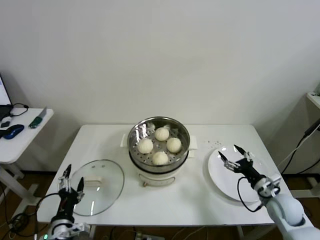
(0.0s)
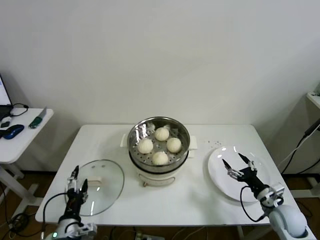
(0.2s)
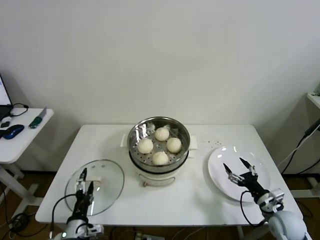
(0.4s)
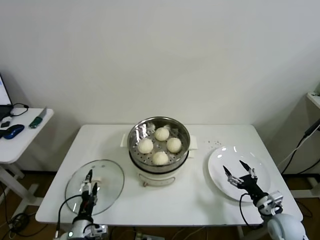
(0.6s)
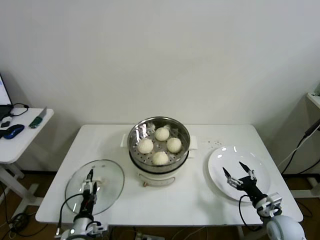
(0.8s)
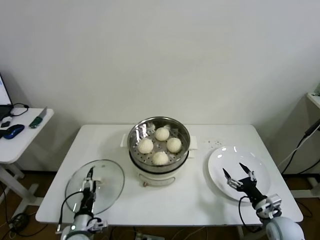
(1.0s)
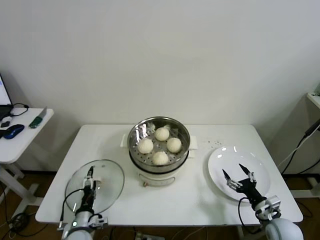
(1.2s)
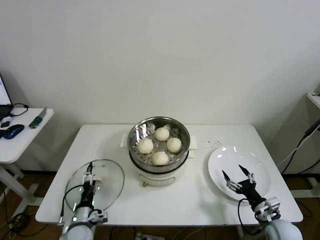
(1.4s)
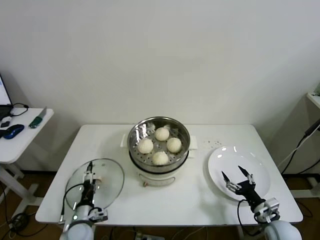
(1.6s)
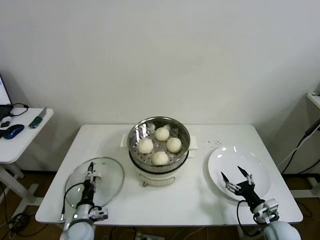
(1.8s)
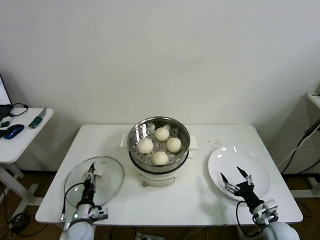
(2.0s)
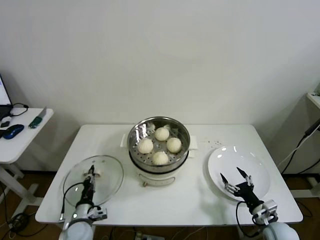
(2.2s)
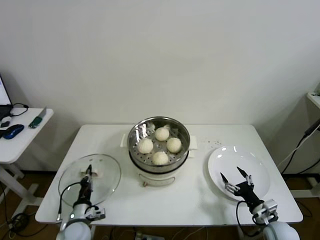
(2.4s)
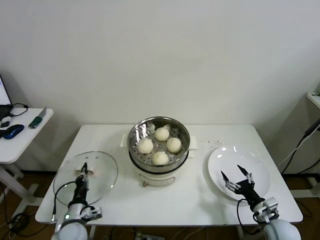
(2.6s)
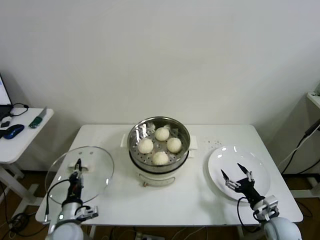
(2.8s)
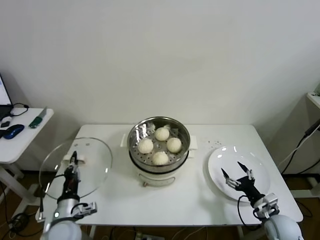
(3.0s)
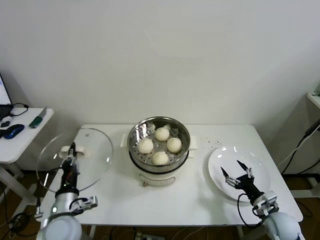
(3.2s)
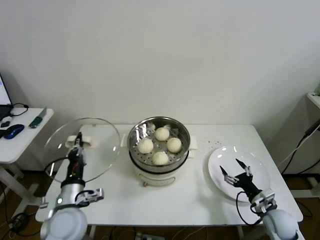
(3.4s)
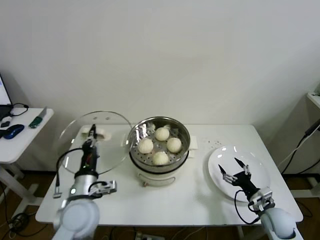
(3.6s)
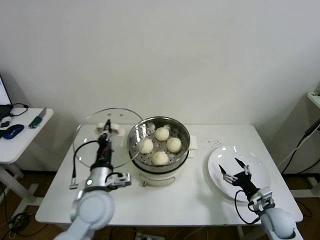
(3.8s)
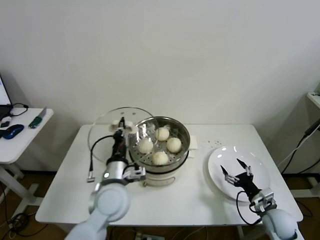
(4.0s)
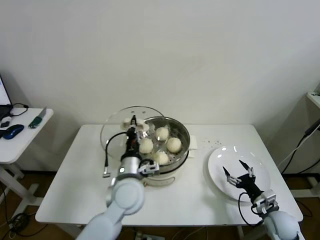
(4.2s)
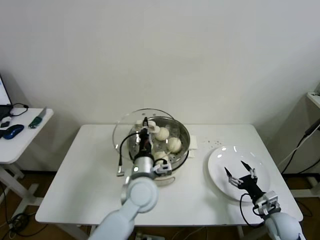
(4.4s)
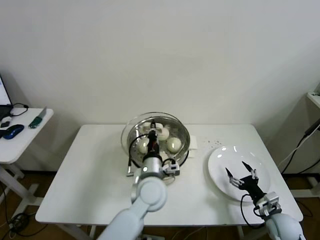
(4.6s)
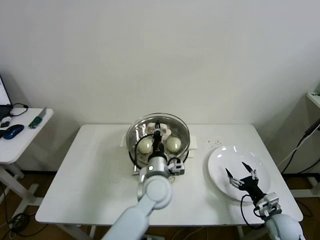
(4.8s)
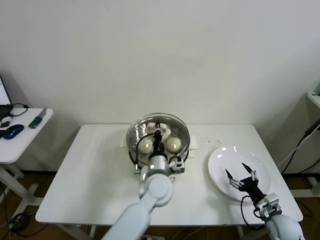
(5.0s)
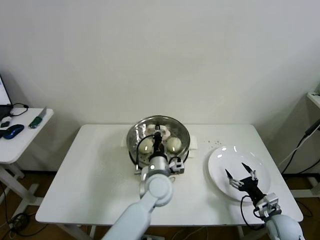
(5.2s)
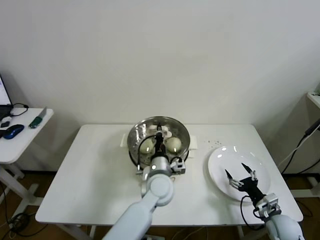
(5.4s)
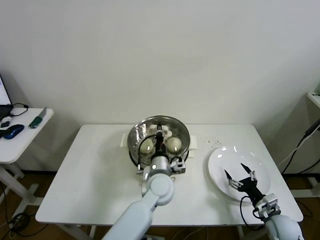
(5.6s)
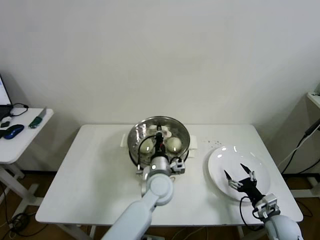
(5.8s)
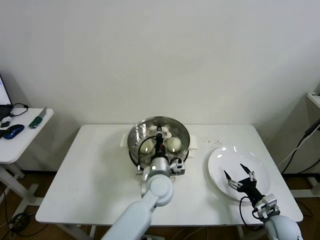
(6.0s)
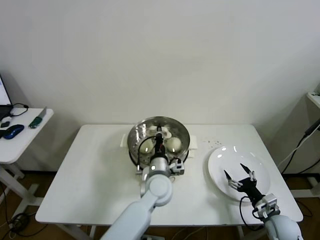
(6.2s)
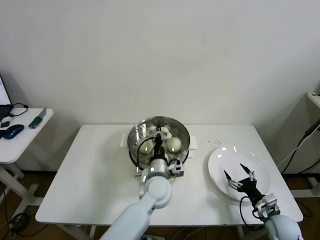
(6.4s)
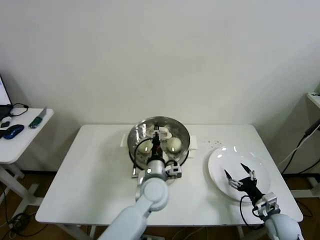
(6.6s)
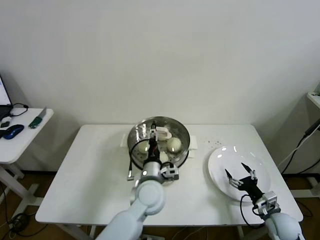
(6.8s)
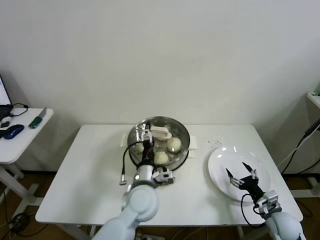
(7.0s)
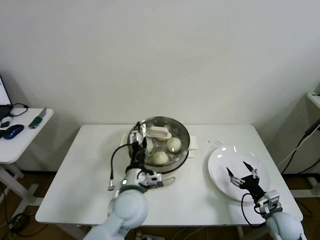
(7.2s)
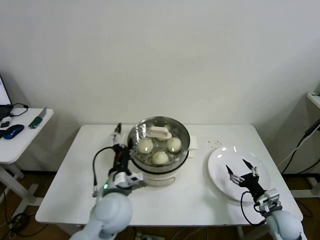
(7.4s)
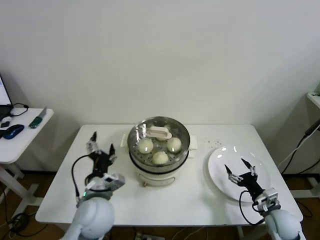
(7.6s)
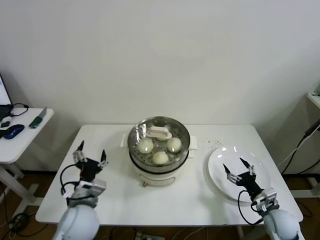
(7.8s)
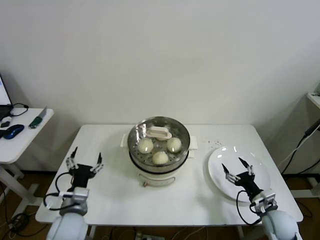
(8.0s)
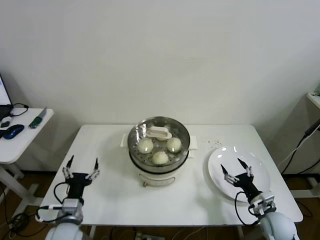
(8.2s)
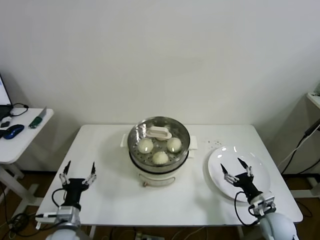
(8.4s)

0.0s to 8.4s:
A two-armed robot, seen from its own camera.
Step, 0.0s to 2.2s: Grasp the pot lid with left gripper.
Step, 2.4s to 6.2s: Place the pot lid on the steamer with left gripper.
0.0s to 1.4s: The left gripper travels downward and forward by approximately 15 cm. Meanwhile the right gripper goes roughly 10 cm backward and downward.
1.4s to 2.8s: The left gripper shifts by some 5 cm, and closes its fingers.
2.8s to 4.2s: The left gripper goes some 25 cm to the right and upward.
4.2s to 5.6s: The left gripper goes some 10 cm to the right and downward.
5.6s to 7.0s: The left gripper changes place by roughly 5 cm, and opens its fingers.
7.0s to 8.4s: The left gripper moves to the left and backward, approximately 25 cm.

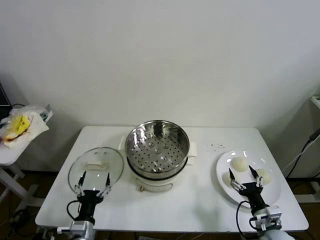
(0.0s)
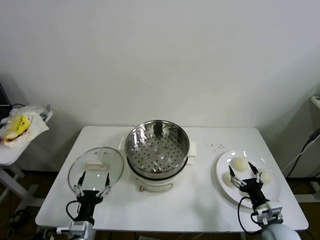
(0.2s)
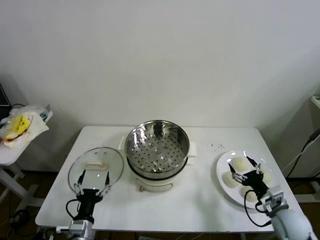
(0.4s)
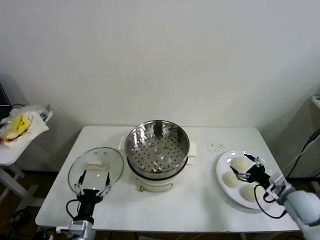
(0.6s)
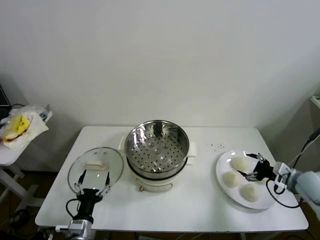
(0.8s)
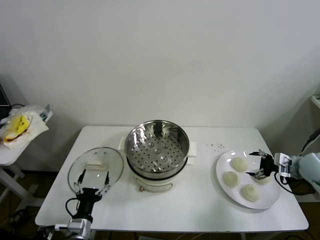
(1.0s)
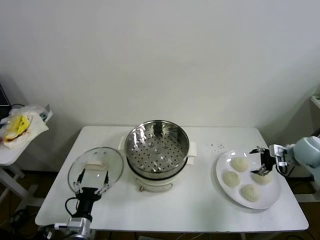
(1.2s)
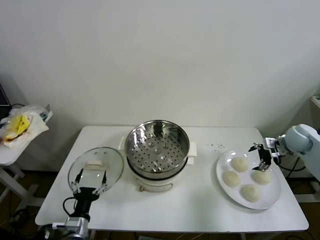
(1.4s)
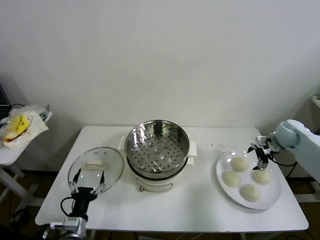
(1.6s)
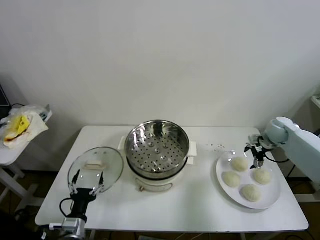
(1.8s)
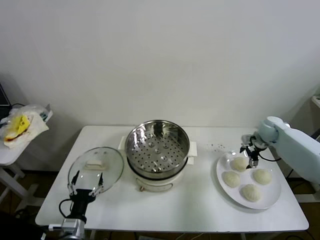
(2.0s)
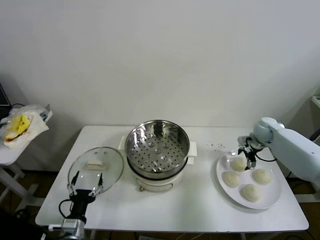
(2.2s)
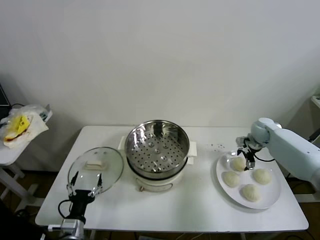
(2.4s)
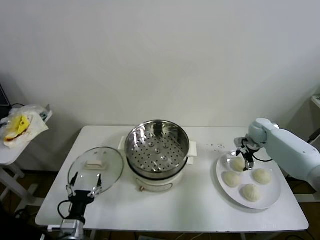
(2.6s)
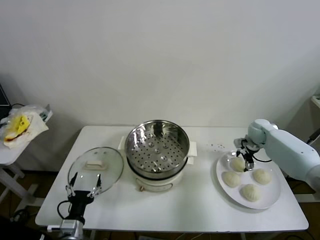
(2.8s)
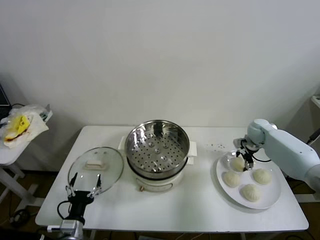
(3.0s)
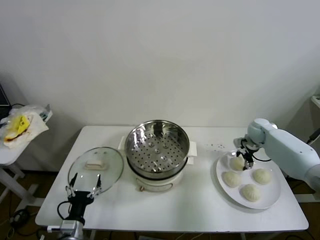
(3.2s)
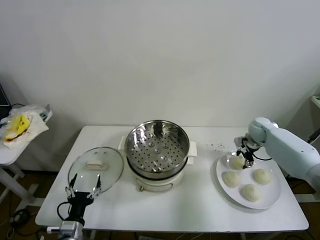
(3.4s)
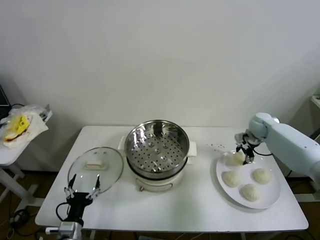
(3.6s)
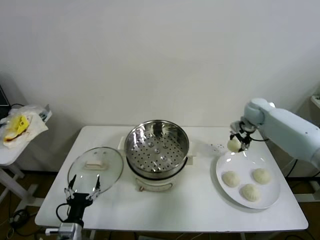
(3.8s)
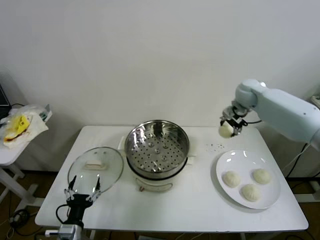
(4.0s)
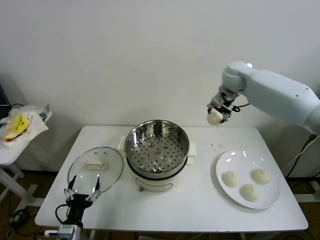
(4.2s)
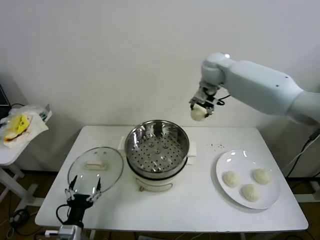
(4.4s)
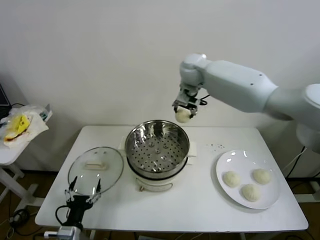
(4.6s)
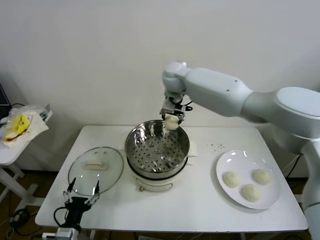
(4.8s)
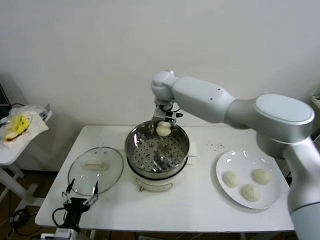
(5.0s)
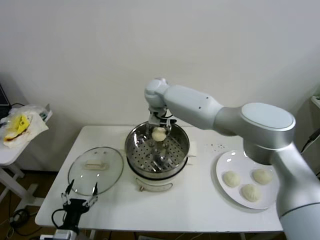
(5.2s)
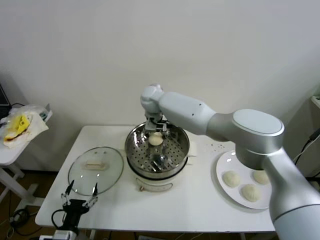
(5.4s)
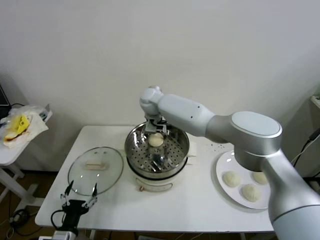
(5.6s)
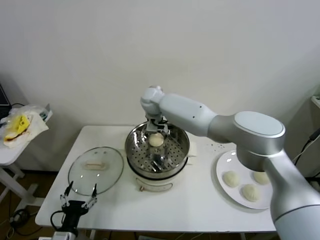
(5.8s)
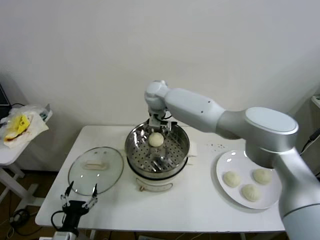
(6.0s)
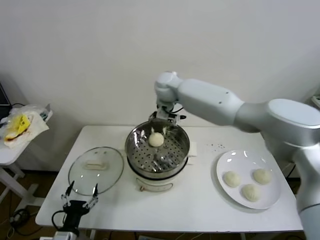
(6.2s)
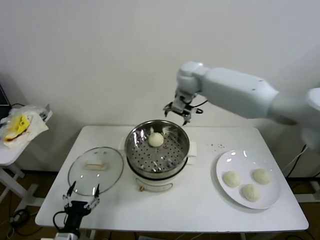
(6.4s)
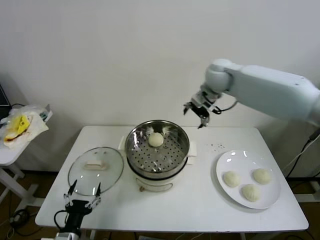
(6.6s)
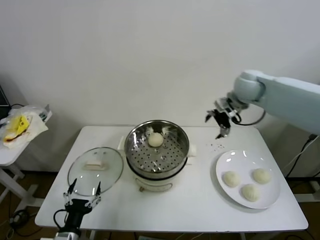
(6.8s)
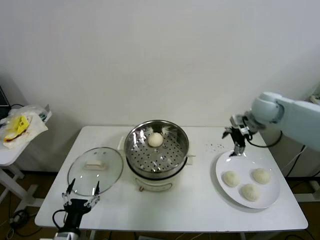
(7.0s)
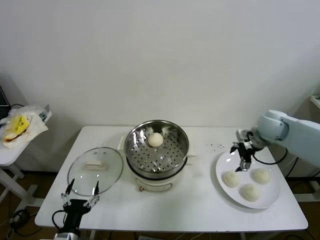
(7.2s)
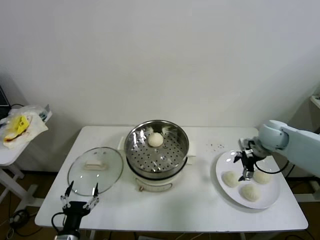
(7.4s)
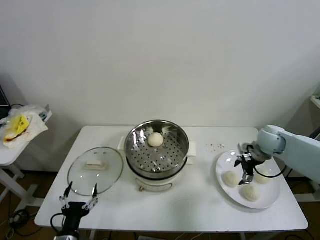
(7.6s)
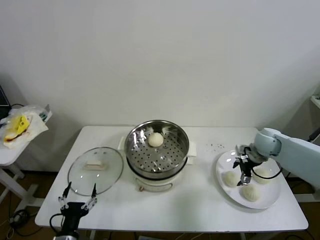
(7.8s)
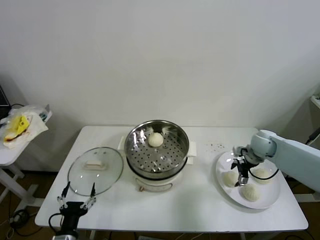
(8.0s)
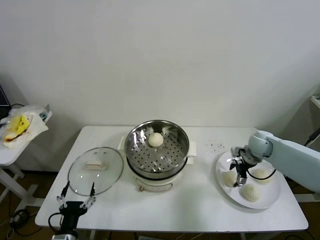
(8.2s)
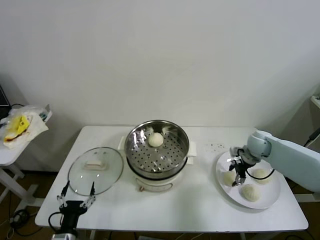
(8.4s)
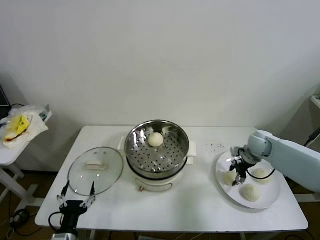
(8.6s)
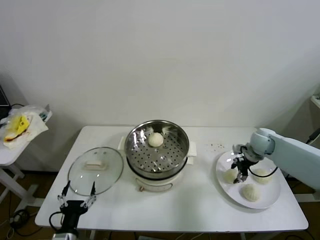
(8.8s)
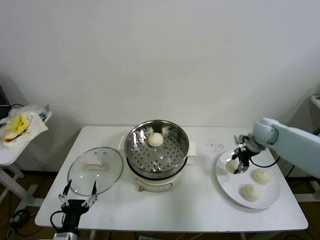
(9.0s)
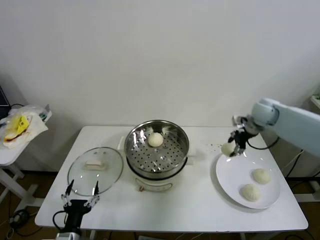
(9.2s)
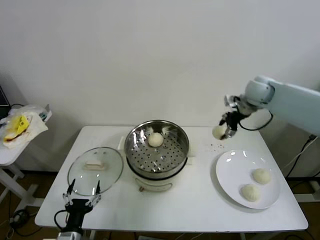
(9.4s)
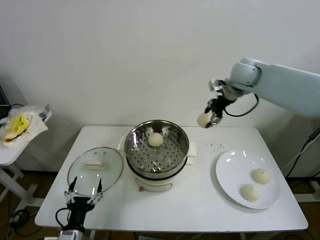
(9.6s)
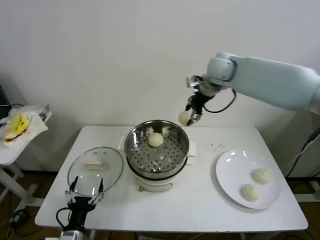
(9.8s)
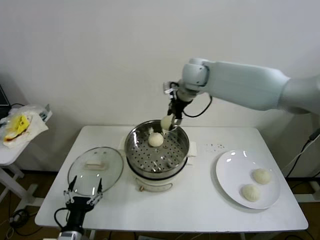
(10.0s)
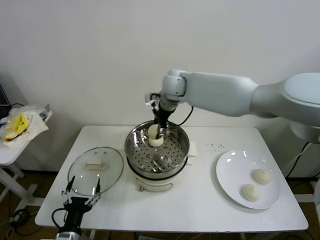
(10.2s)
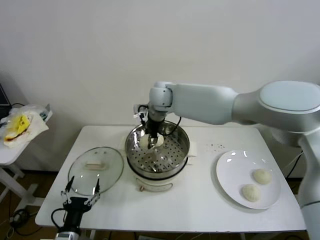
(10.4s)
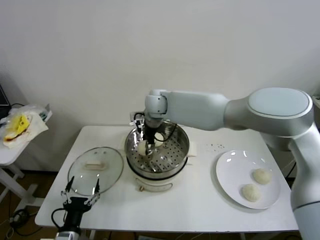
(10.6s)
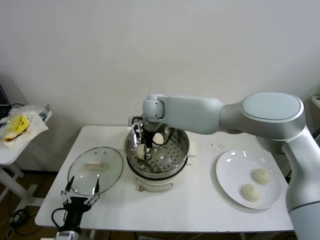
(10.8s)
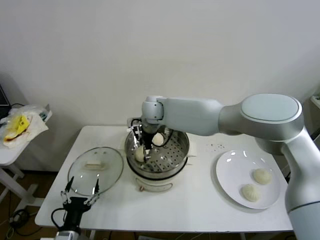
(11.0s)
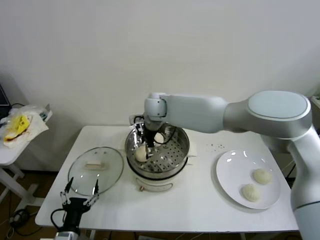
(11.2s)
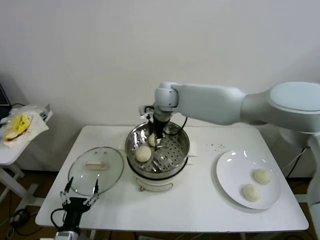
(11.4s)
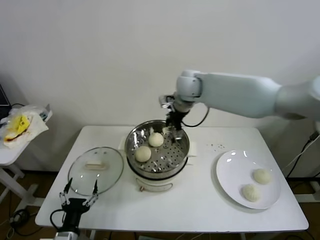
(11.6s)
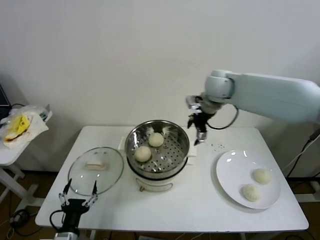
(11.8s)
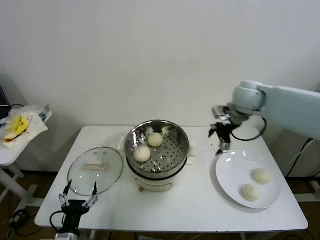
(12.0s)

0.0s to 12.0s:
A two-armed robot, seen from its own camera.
Step, 0.0s to 3.0s: Grasp the baozi in the plate with right gripper.
Step, 3.2s to 5.4s: Place the baozi on the steamer with right gripper.
Step, 5.8s to 8.2s: Grasp the baozi in the plate with right gripper.
Step, 8.6s to 10.8s: Place the baozi on the steamer with right gripper.
1.6s to 3.0s: The right gripper shifts roughly 5 cm to the left, and closes.
3.0s to 4.4s: The right gripper heads to the left and upward, covering some 35 cm.
4.4s to 6.0s: The right gripper is displaced to the left and downward by approximately 15 cm, and opens.
6.0s to 7.6s: The right gripper travels to the right by some 40 cm.
7.6s to 9.0s: The right gripper changes place by some 5 cm, and closes.
9.0s to 10.4s: The right gripper goes approximately 40 cm to the left.
10.4s to 12.0s: The right gripper moves to the right, about 30 cm, and opens.

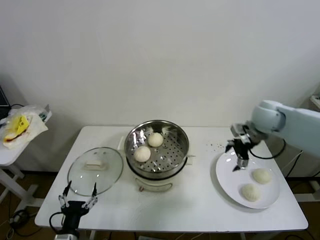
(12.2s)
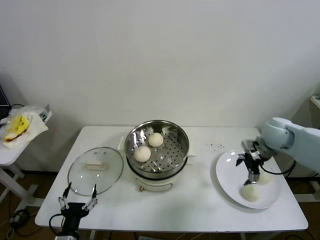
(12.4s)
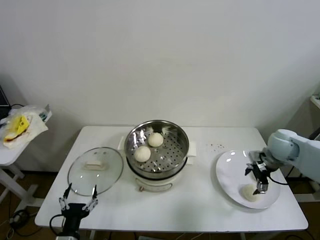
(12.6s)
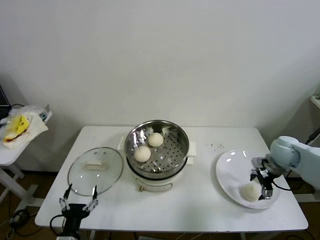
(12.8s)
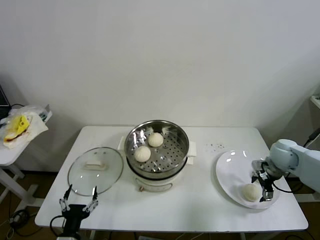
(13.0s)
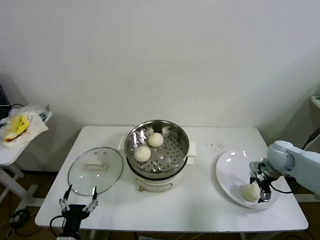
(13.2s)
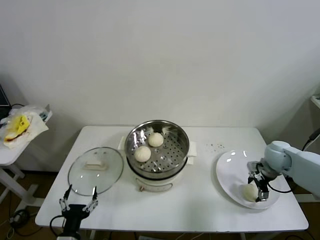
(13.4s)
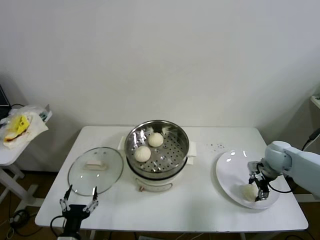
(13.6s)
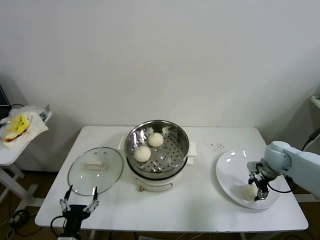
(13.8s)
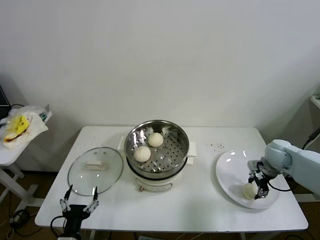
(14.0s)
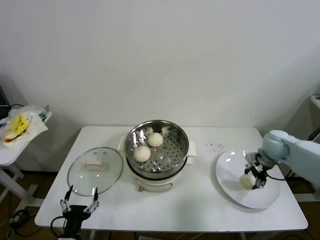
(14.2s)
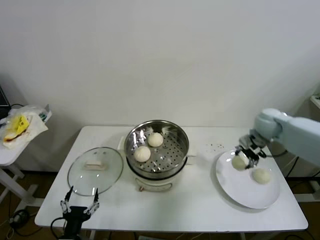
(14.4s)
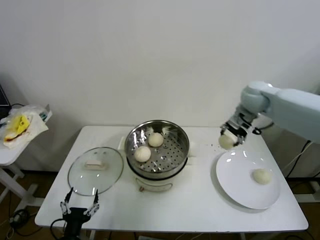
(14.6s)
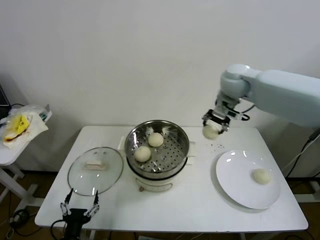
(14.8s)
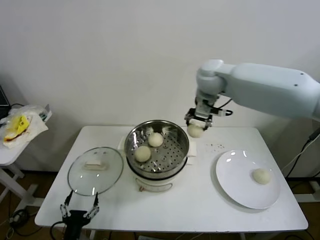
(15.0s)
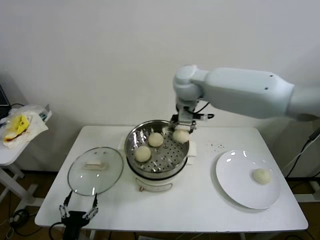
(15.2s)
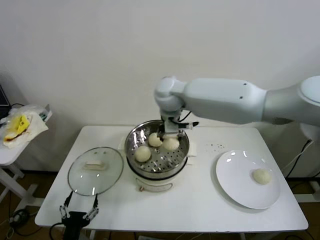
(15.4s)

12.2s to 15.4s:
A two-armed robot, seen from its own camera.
12.2s to 13.8s: The right gripper is displaced downward and to the right by some 15 cm, and closes its fingers.
13.8s to 15.4s: The right gripper shifts about 50 cm to the left and upward.
